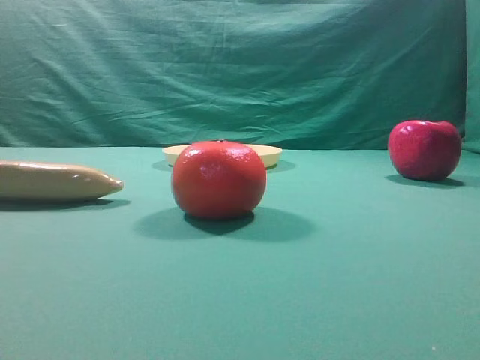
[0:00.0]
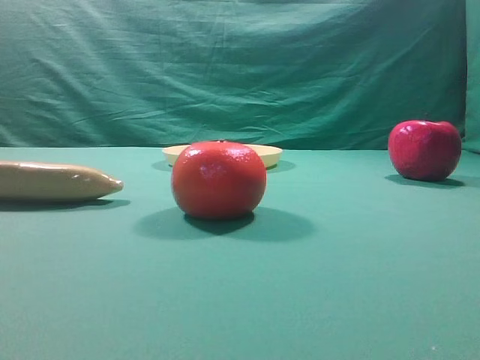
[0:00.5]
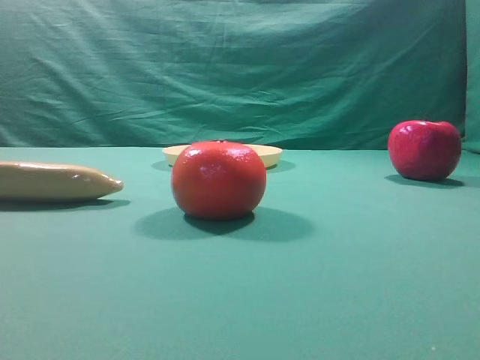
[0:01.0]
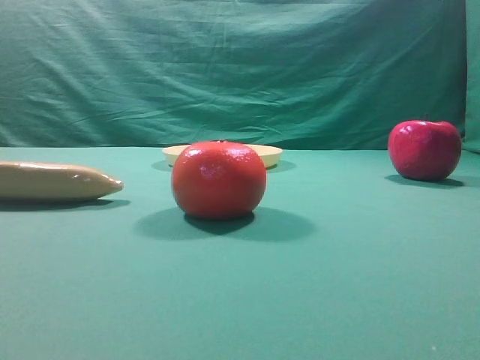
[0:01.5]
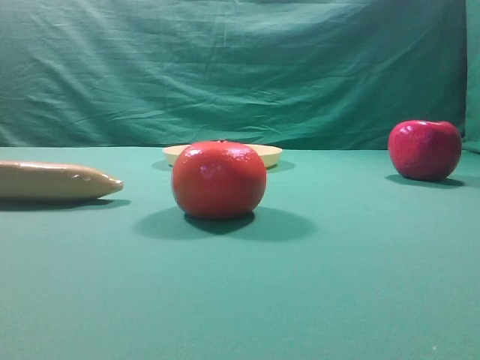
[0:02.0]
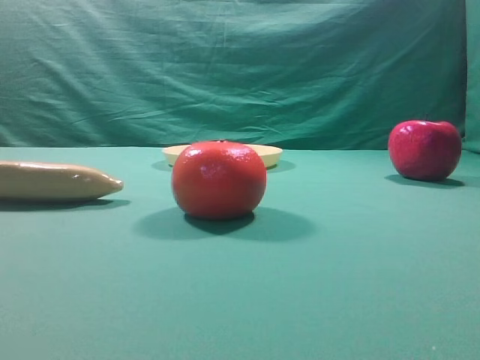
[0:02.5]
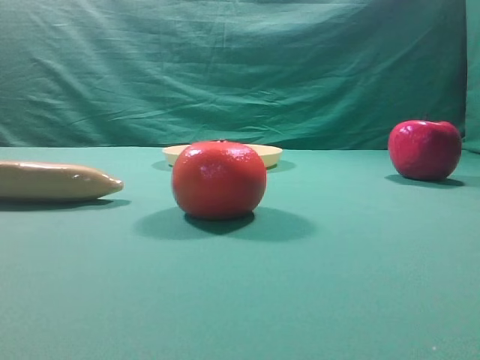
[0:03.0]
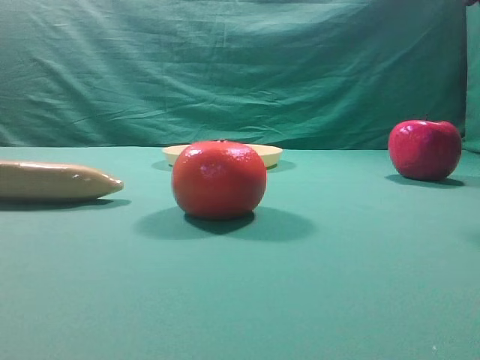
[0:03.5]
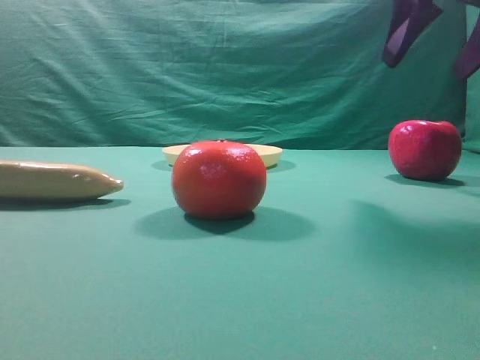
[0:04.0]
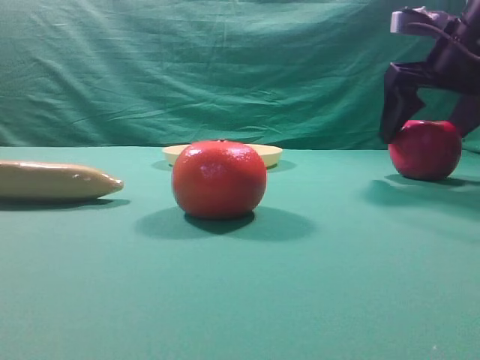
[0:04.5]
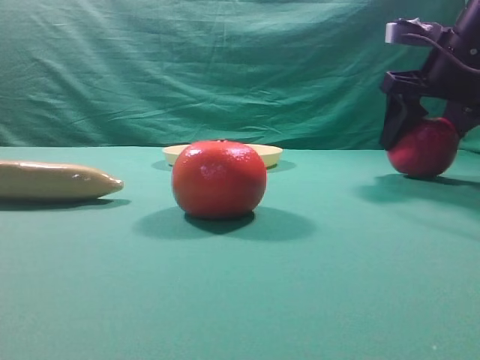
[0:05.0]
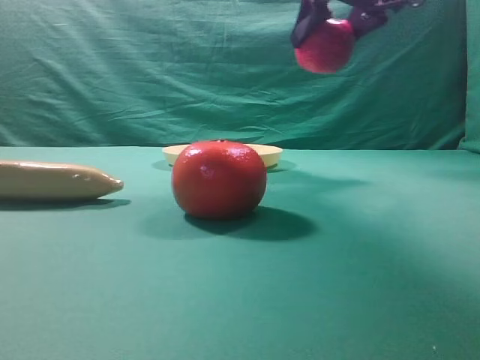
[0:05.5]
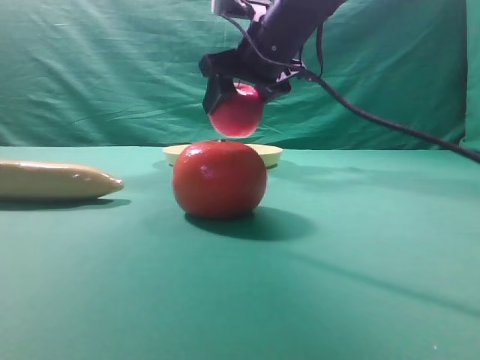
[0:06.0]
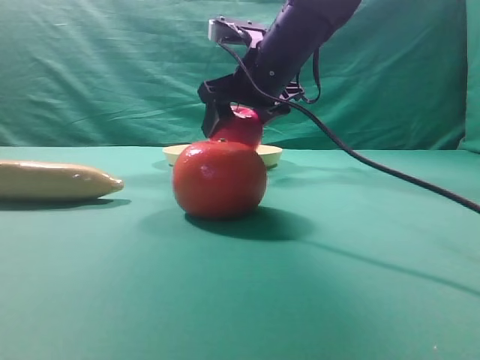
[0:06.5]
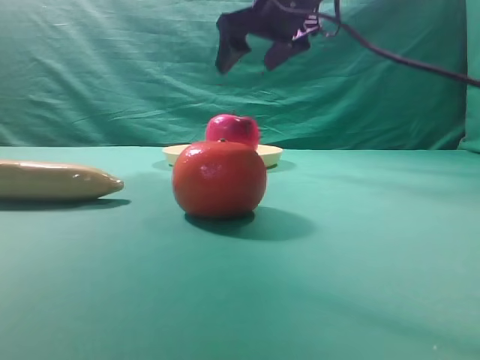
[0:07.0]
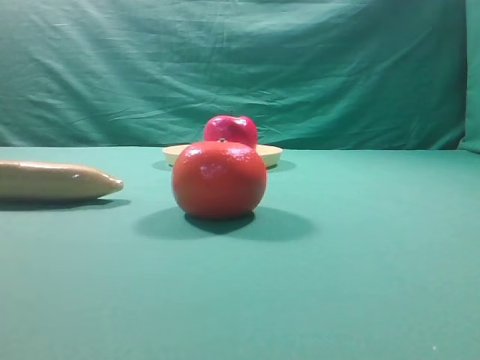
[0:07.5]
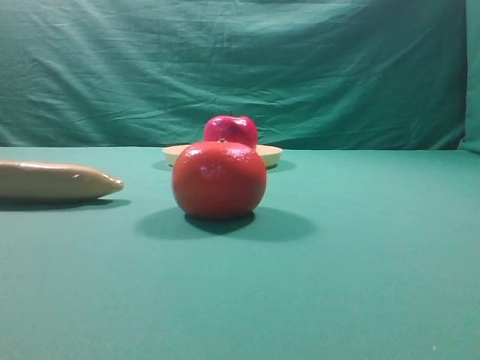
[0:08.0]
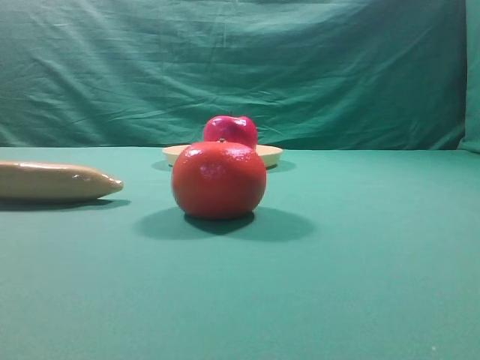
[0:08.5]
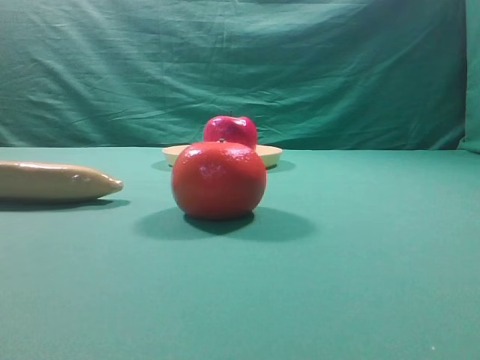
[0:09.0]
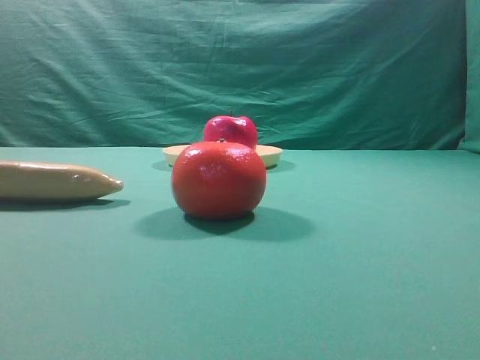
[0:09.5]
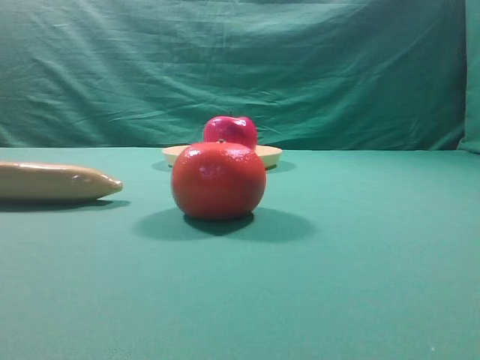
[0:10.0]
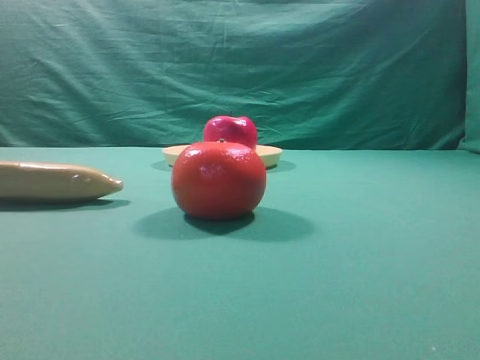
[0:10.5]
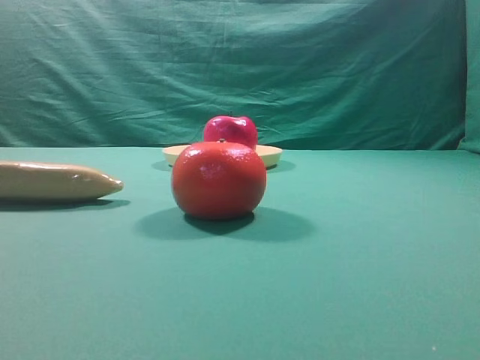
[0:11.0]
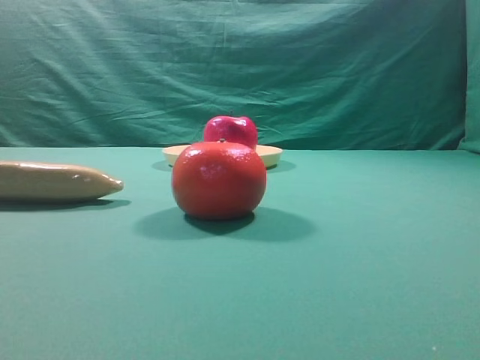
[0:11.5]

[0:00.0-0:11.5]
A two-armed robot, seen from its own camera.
Task of the whole recording: grasp the apple and place it into the yellow plate.
Step, 0:00.0 to 0:05.0: Grasp the fruit that can keep the doctor away.
Step, 0:05.5 to 0:06.5: Place the picked object into the yellow plate.
